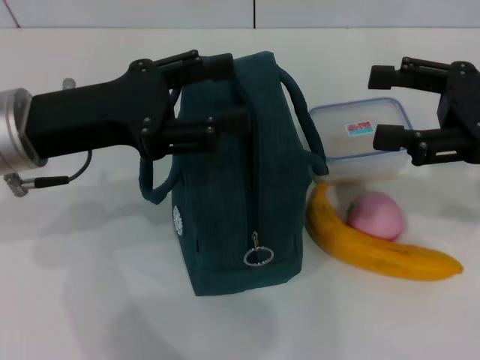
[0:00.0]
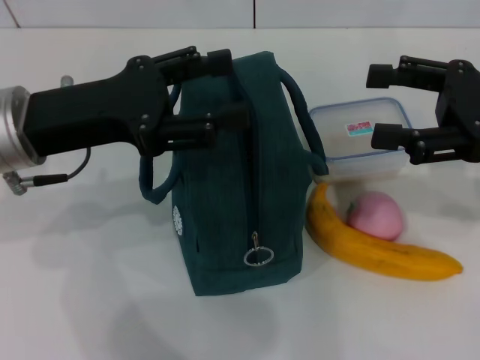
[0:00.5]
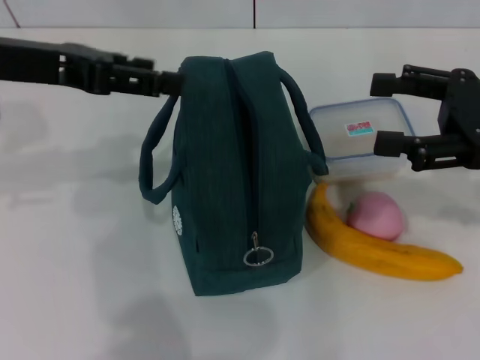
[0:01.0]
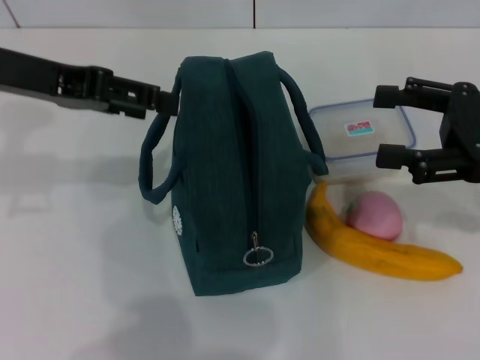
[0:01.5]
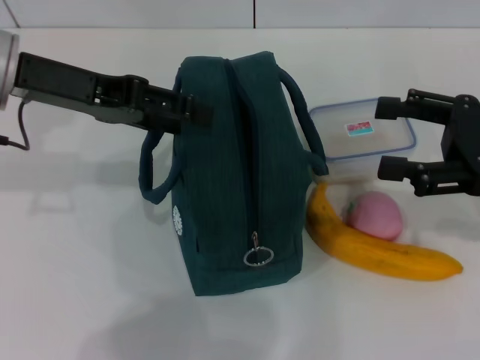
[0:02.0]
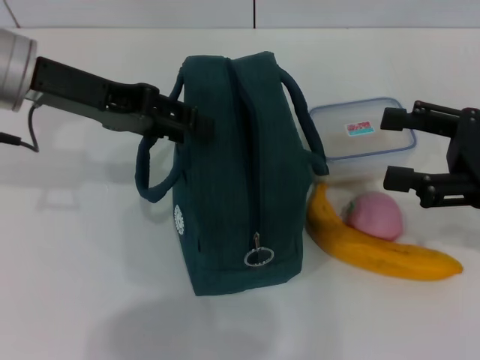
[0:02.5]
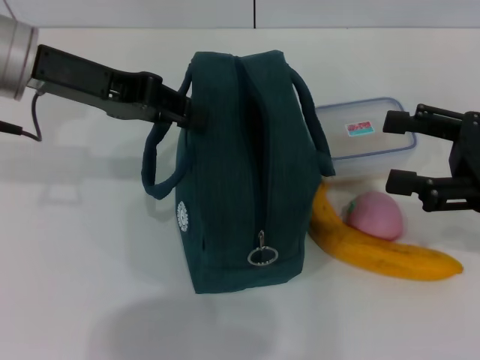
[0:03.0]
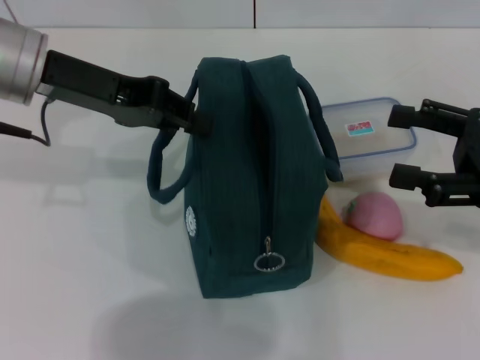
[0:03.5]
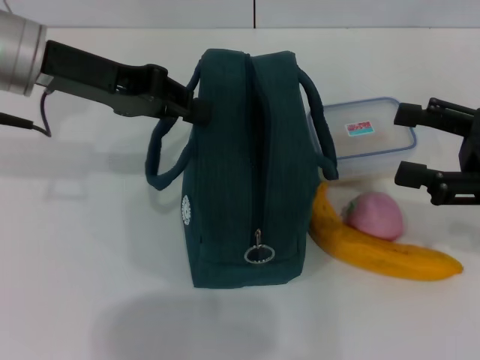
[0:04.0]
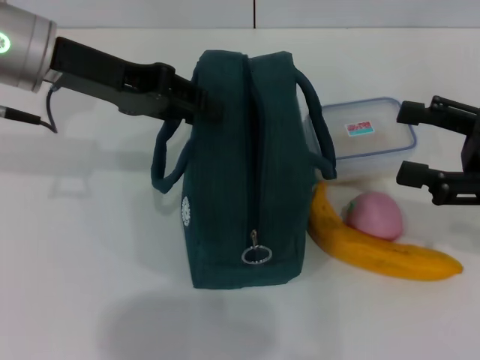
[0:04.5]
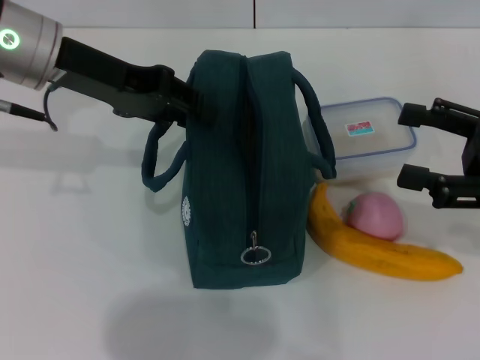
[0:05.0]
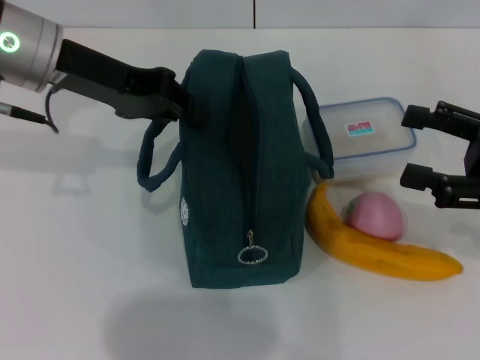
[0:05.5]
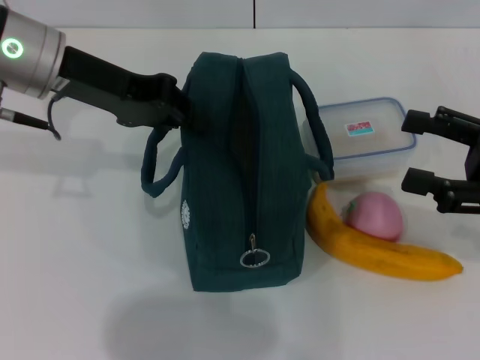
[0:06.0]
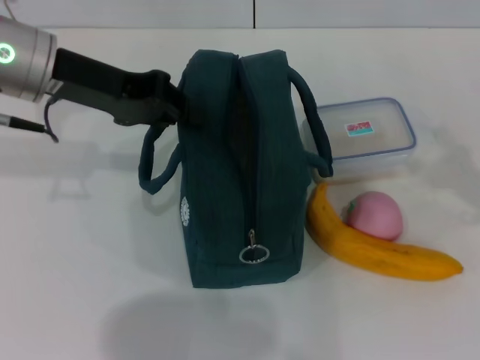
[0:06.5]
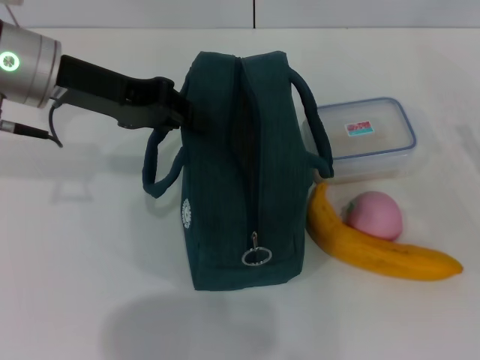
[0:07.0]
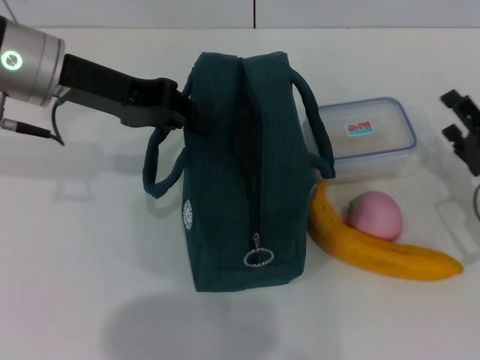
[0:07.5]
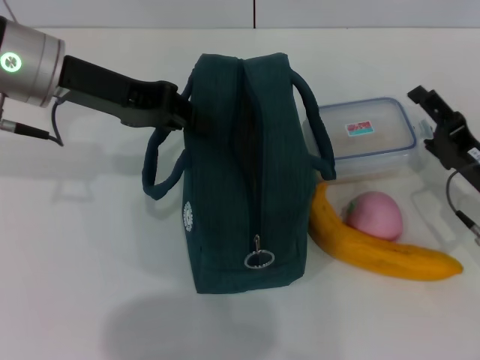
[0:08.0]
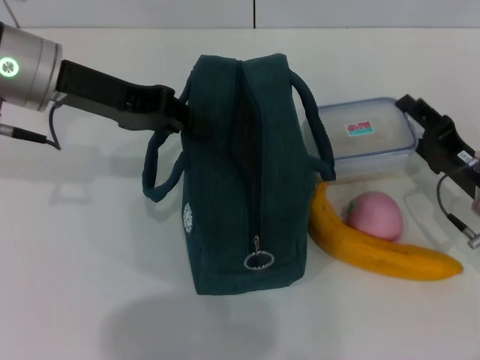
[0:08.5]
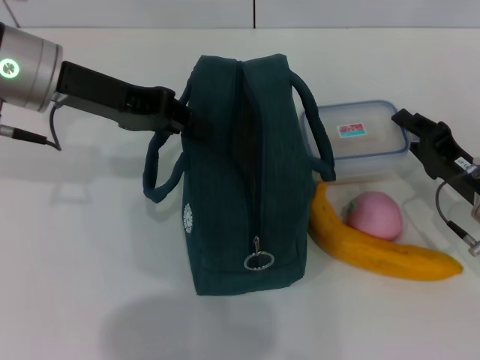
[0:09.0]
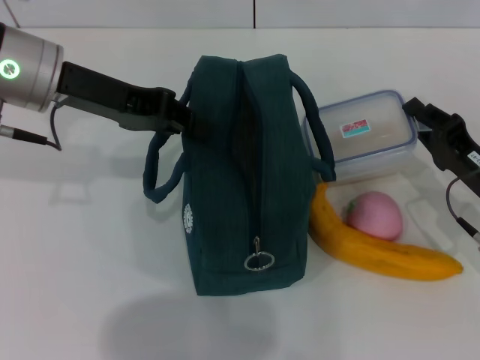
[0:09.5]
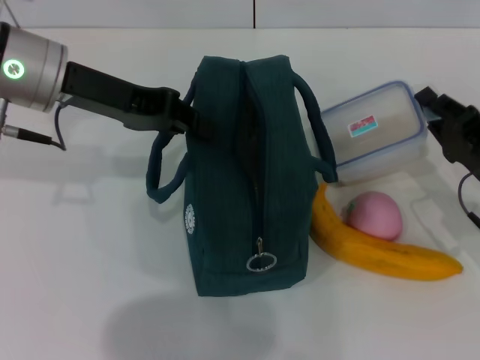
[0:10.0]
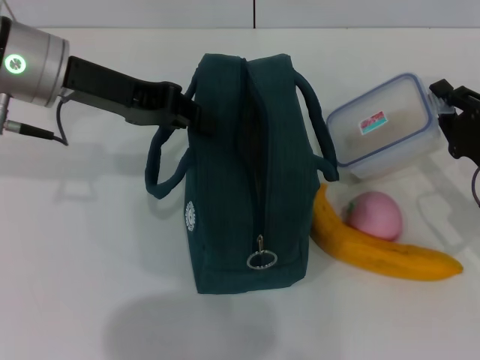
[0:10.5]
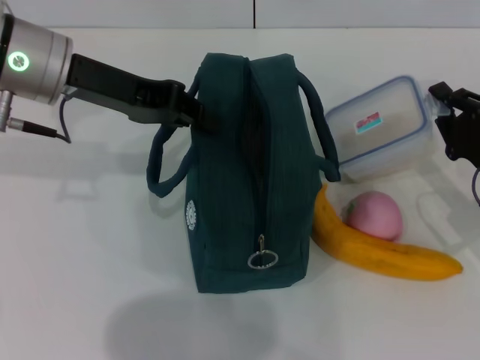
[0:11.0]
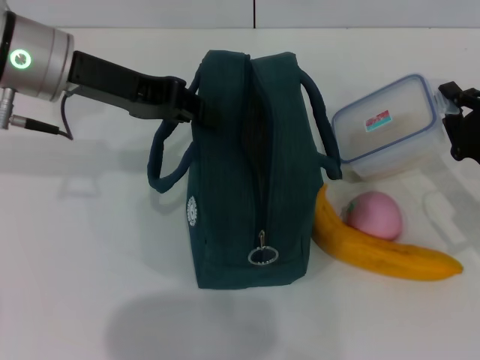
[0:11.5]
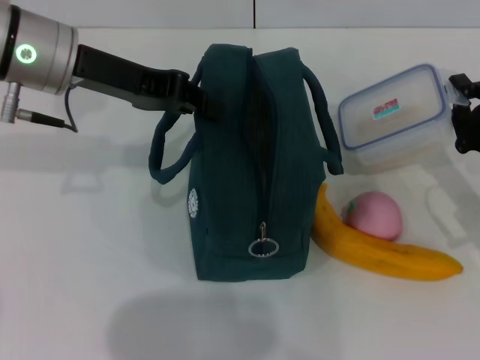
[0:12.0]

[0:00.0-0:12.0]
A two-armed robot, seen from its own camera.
Step, 0:00.0 to 0:06.0: Hold the lunch bag with your left hand.
Step, 0:06.5 to 0:10.5: Pick up the lunch box with your right hand.
0:00.0 to 0:02.0: The left gripper travels upward by about 5 cm.
0:02.0 to 0:04.0: The left gripper closes its fingers.
0:04.0 to 0:06.0: The left gripper opens and closes again.
0:06.0 to 0:08.0: The right gripper is displaced downward by about 10 cm.
0:08.0 to 0:10.0: The right gripper closes up.

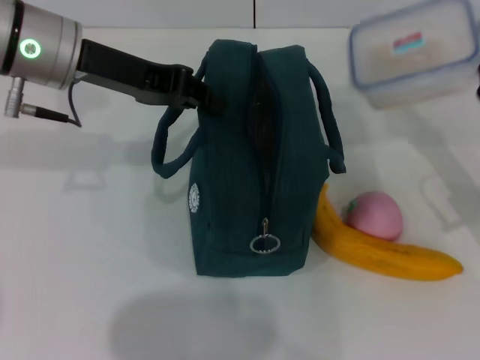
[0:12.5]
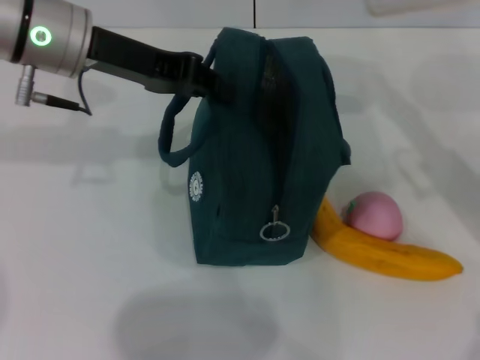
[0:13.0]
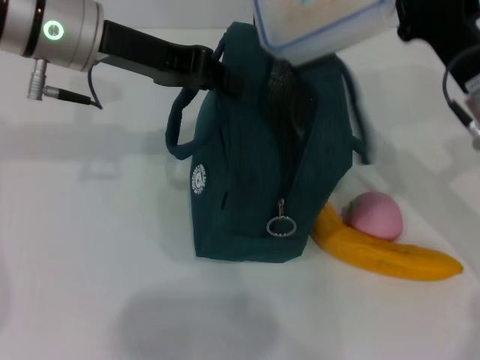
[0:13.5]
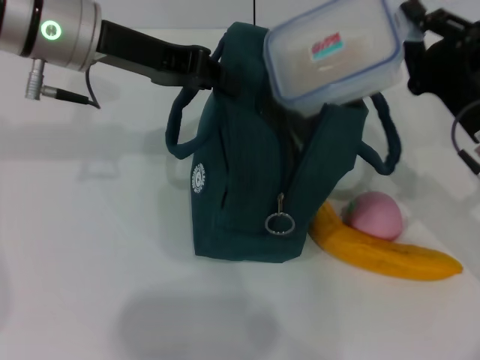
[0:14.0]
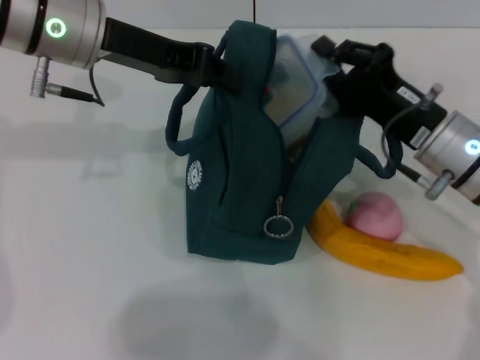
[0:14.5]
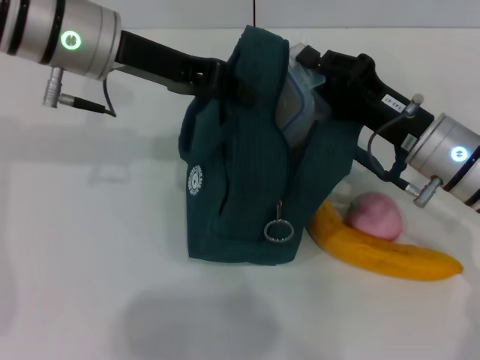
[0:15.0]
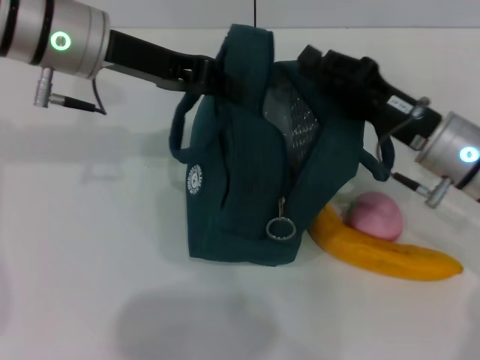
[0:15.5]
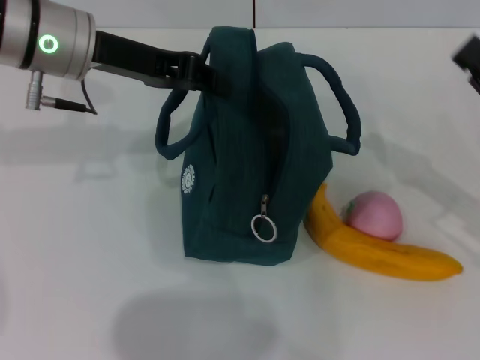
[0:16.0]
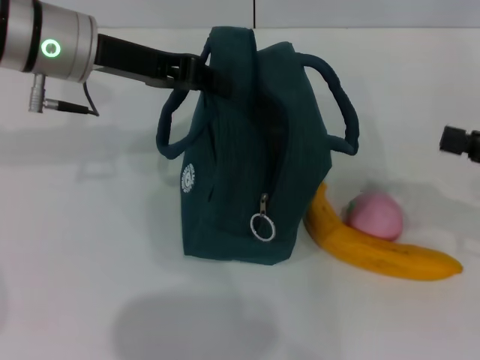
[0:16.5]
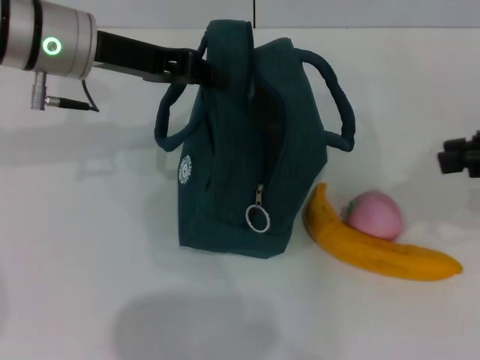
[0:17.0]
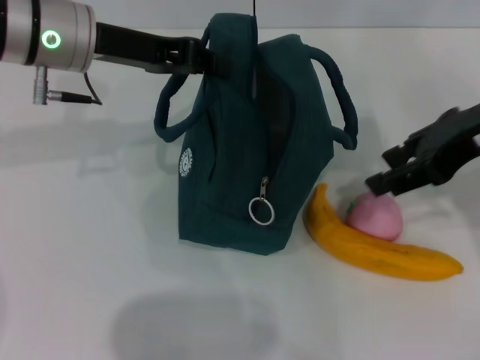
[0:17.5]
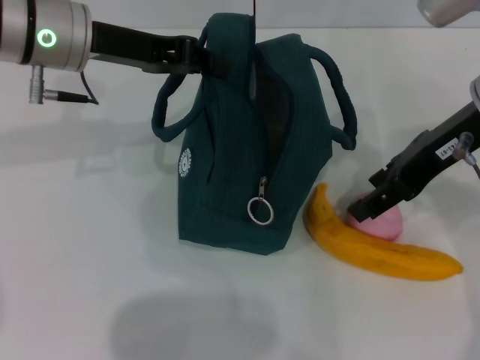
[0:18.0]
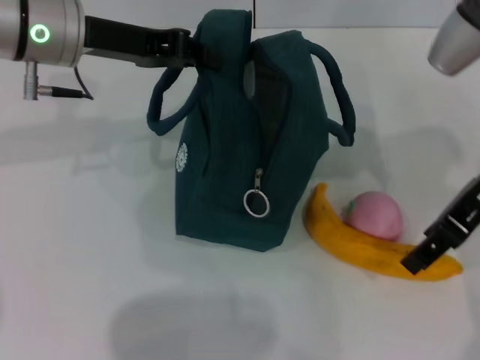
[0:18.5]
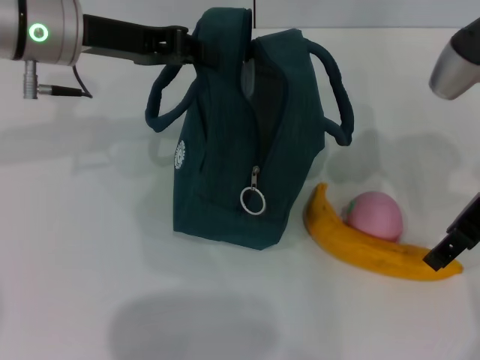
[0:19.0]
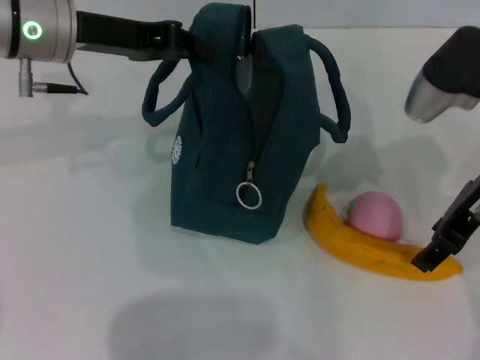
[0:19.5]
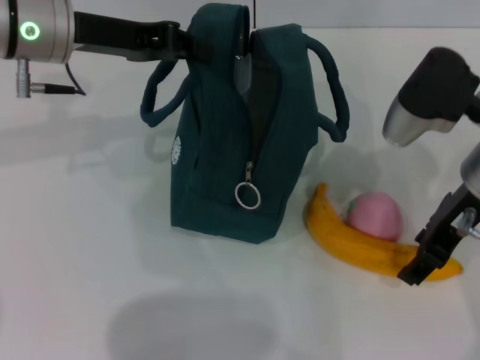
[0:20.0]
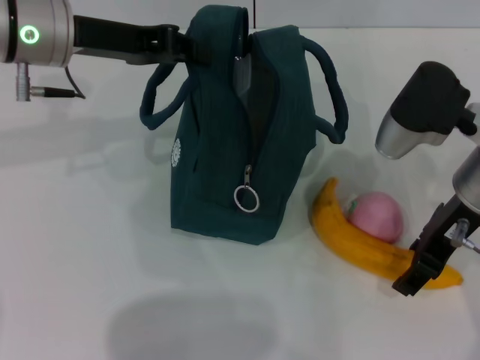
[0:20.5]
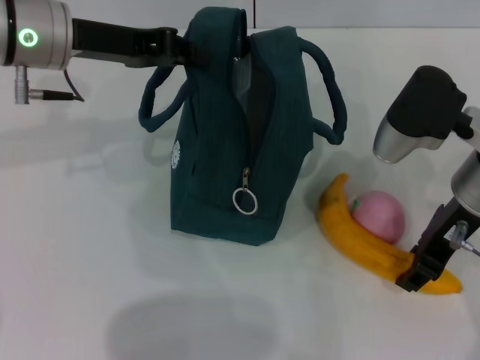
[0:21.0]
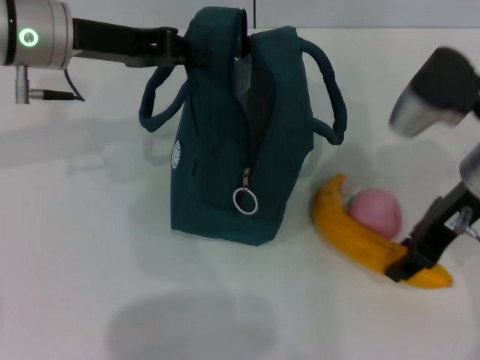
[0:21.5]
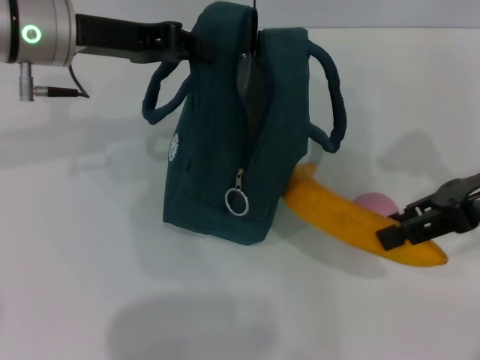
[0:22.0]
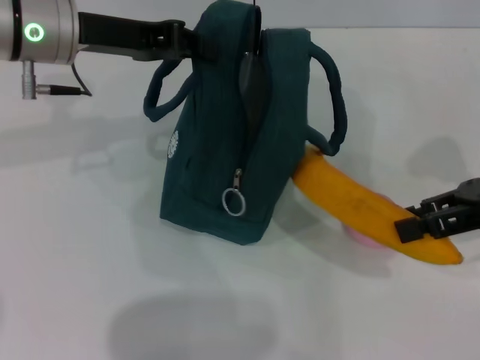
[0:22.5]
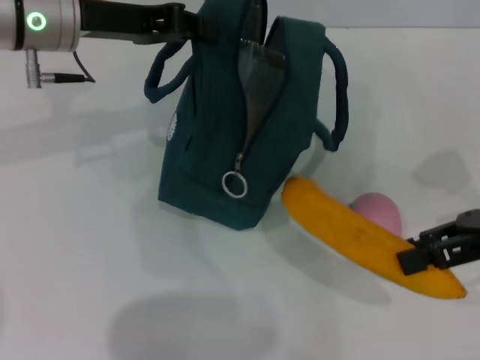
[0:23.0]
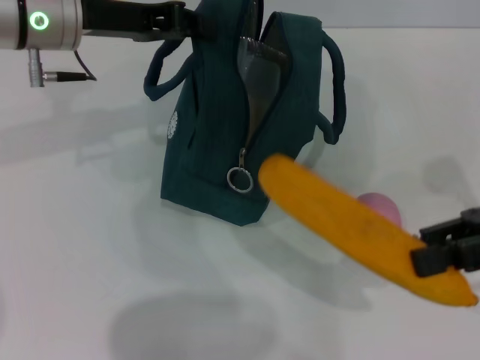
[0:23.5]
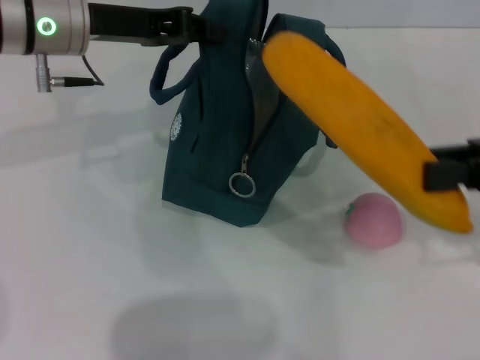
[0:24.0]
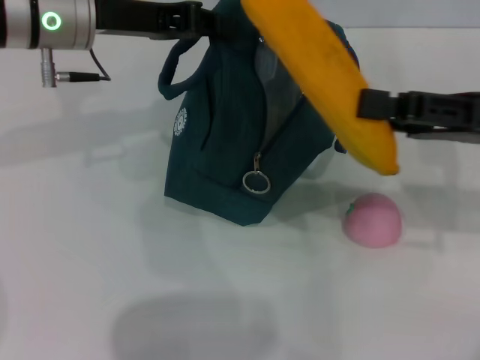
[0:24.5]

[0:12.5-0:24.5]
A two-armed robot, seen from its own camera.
Step, 0:12.5 to 0:15.0: Place the lunch box into the lunch bag with your right hand.
Step, 0:15.5 to 0:21.0: Take the banana with your right hand.
0:12.5 to 0:14.5: The right gripper is displaced to the left by about 10 cm.
0:14.5 to 0:16.5: The right gripper is displaced to the right by about 15 cm.
0:16.5 to 0:18.5: The right gripper goes about 15 cm to the left and upward, and opens up.
0:18.5 to 0:20.5: The right gripper is displaced downward by about 5 cm.
0:20.5 to 0:22.5: The right gripper travels to the right by approximately 10 cm.

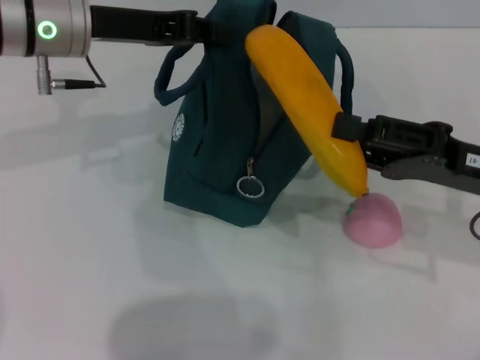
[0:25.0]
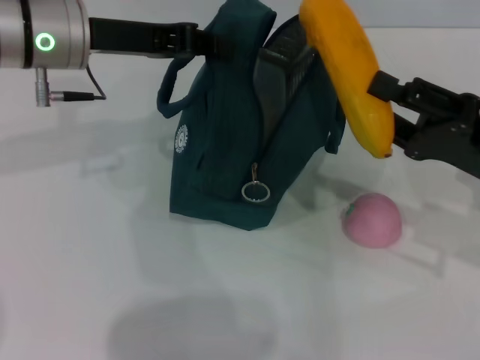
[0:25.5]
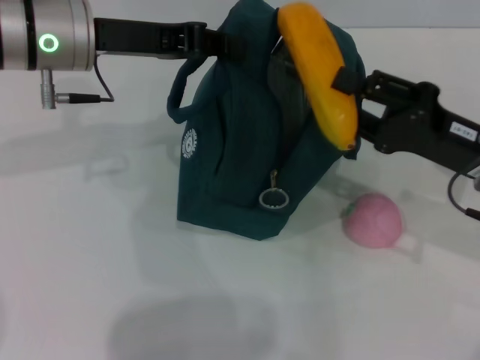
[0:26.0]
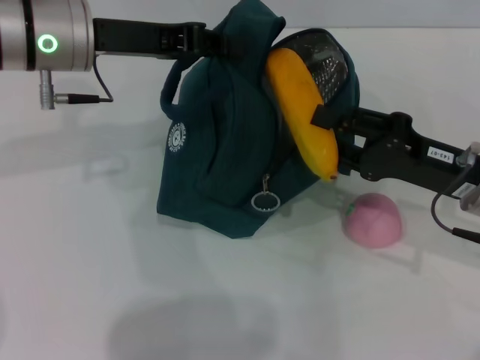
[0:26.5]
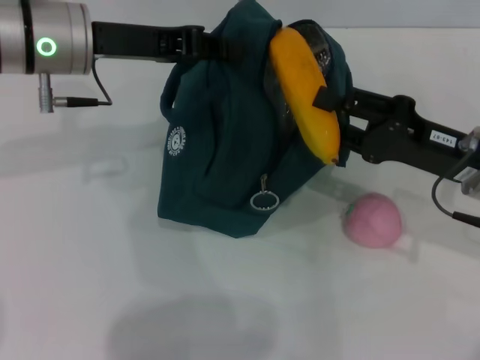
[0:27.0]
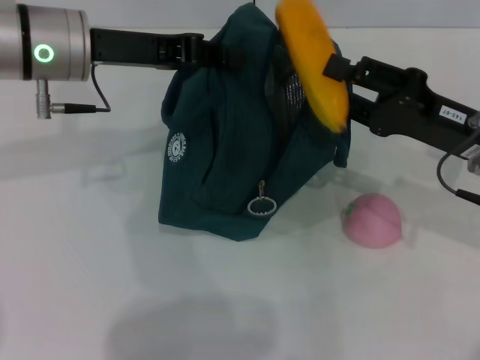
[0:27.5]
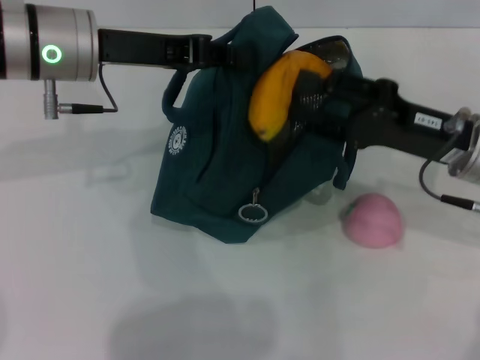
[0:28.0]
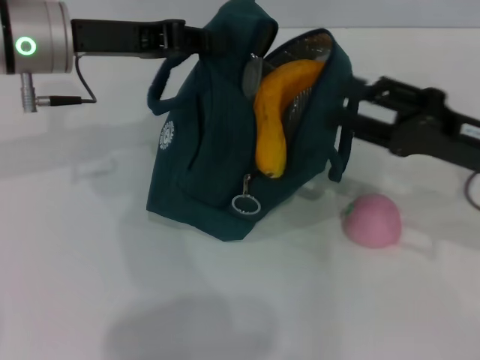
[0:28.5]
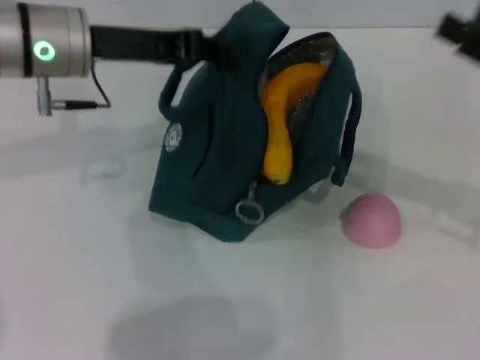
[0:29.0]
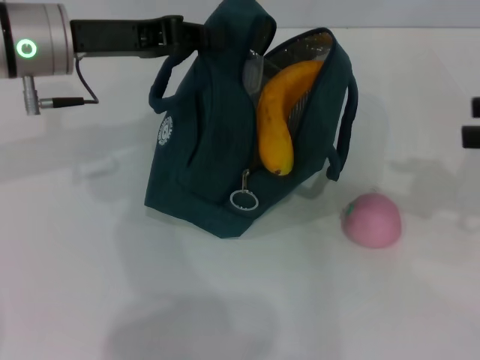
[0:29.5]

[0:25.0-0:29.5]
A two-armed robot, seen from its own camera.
Step, 0:25.0 to 0:28.0: Put the banana into the lunch bag with your right hand.
0:25.0 to 0:27.0: The grippers move only a little.
0:27.0 to 0:29.5: The right gripper is displaced upward and to the right by roughly 15 cm.
